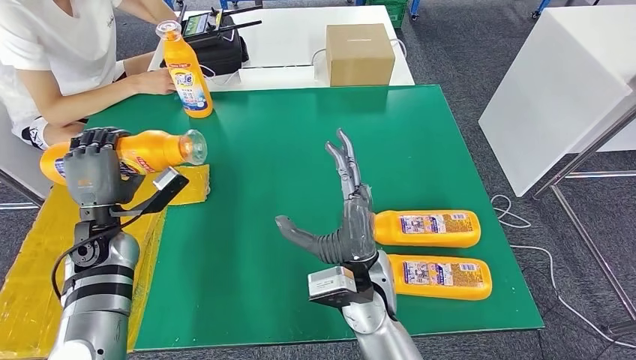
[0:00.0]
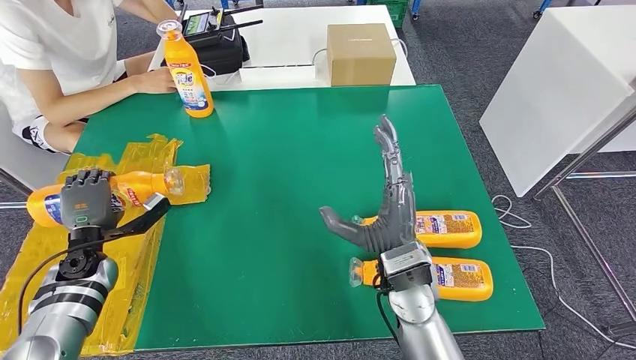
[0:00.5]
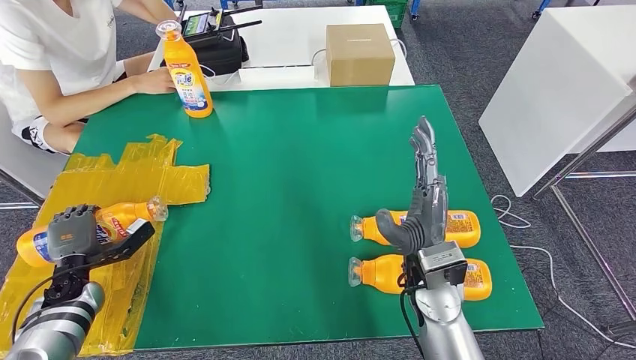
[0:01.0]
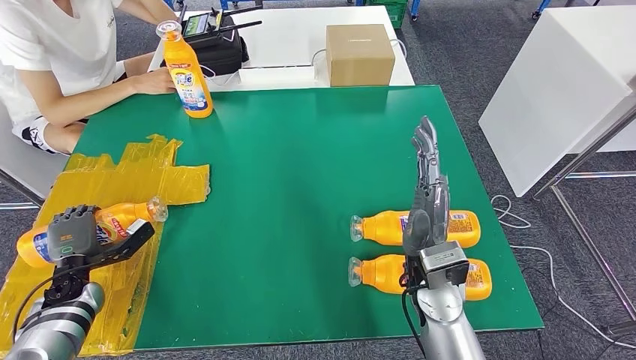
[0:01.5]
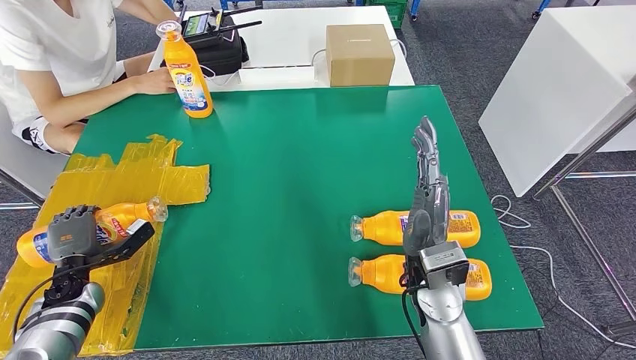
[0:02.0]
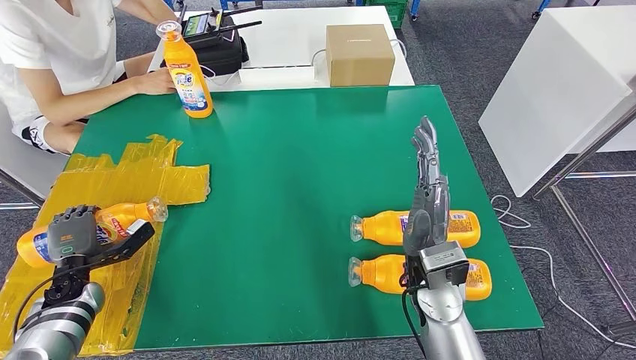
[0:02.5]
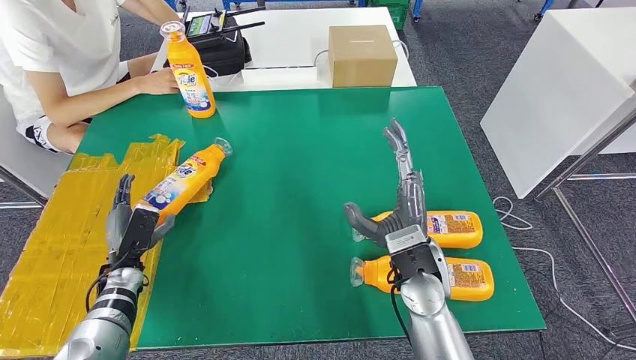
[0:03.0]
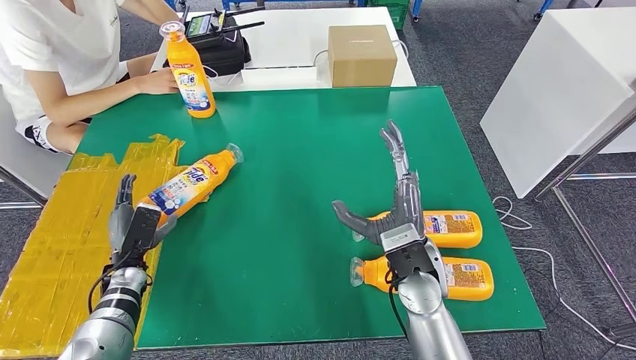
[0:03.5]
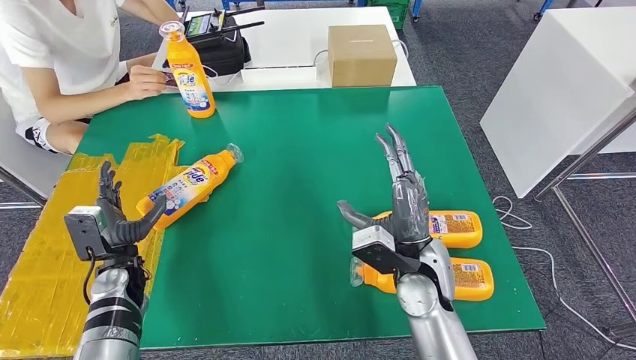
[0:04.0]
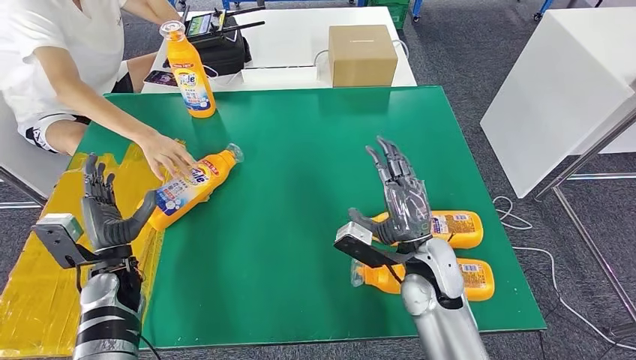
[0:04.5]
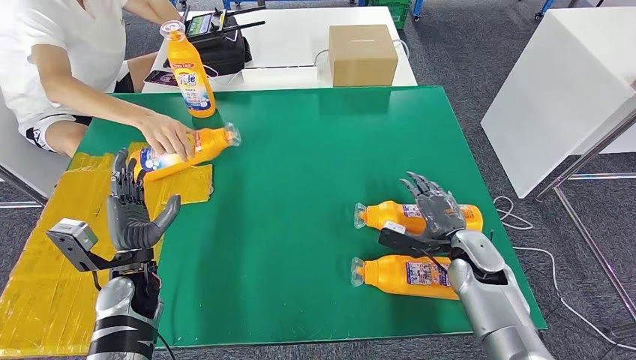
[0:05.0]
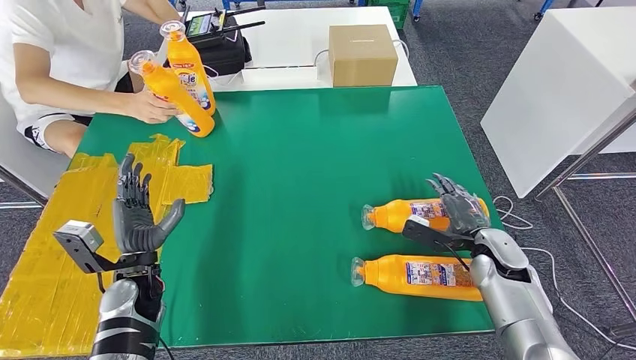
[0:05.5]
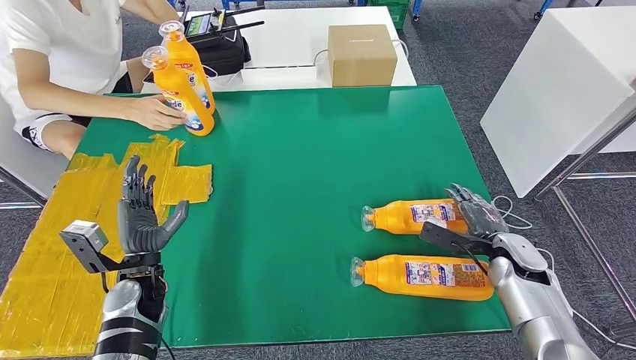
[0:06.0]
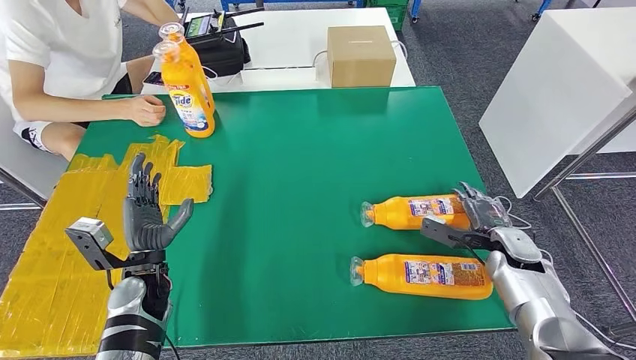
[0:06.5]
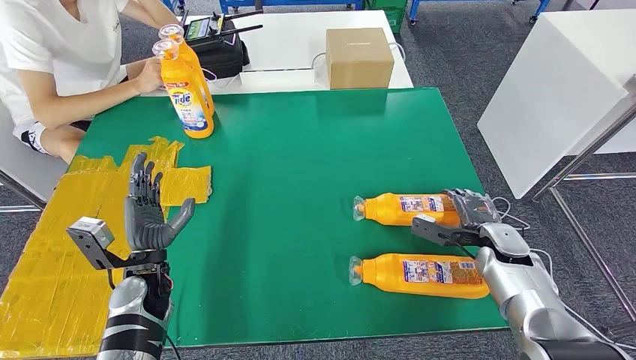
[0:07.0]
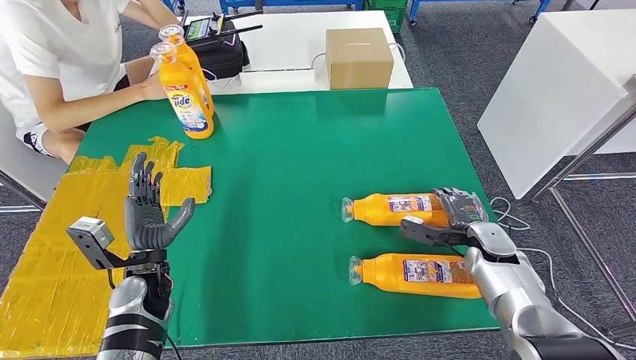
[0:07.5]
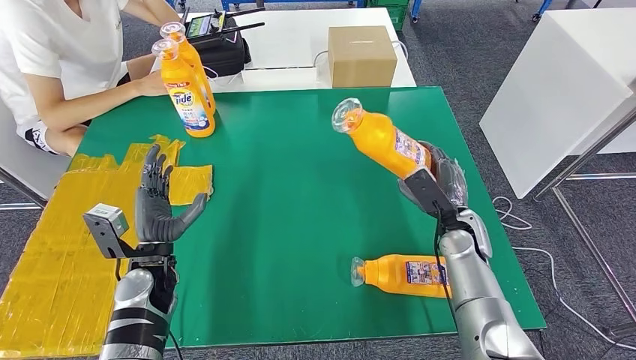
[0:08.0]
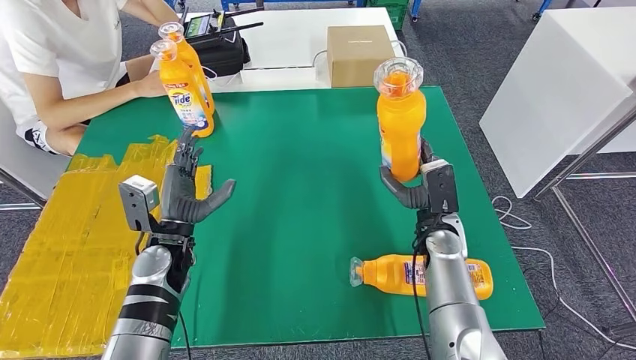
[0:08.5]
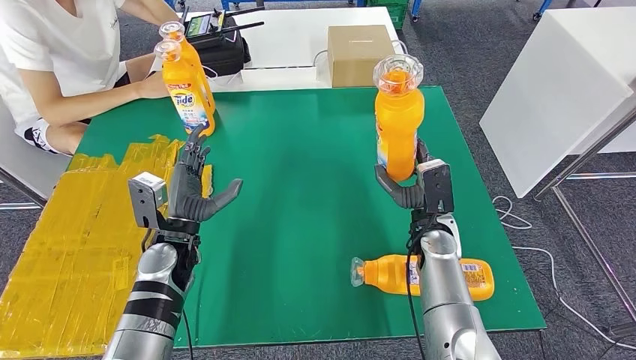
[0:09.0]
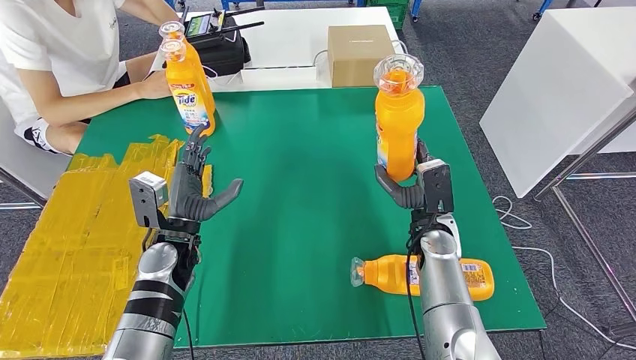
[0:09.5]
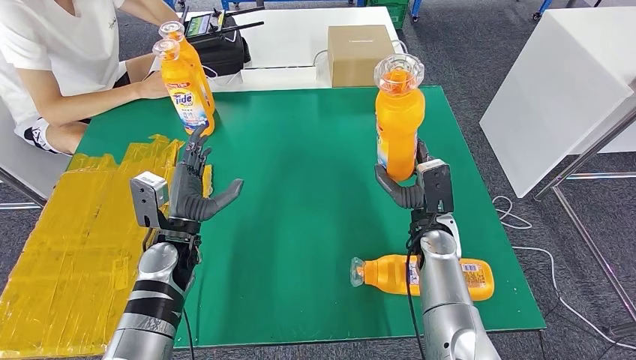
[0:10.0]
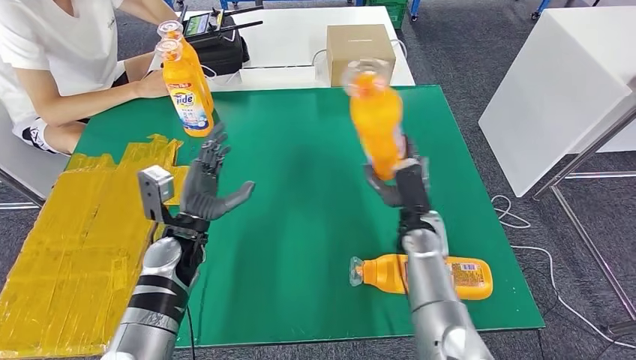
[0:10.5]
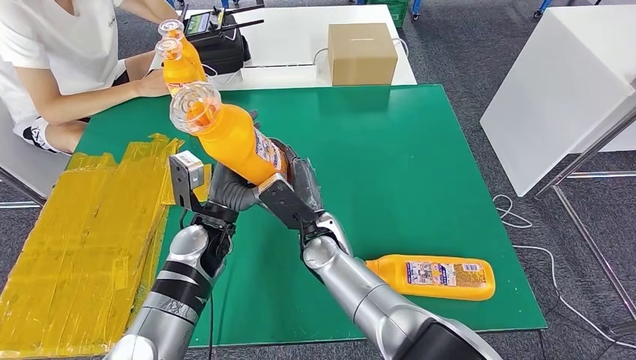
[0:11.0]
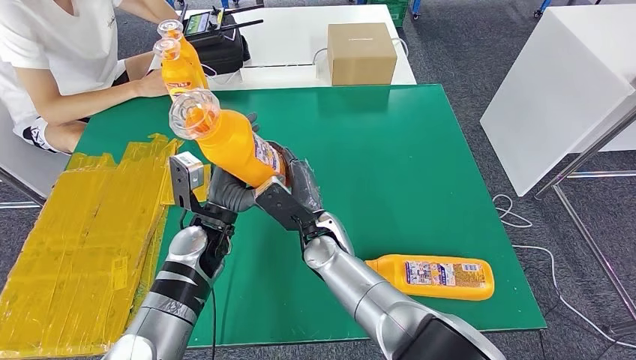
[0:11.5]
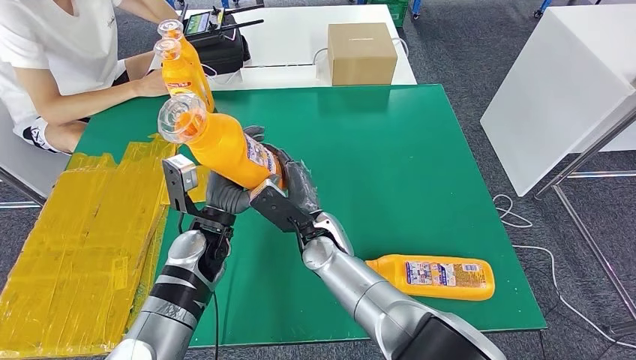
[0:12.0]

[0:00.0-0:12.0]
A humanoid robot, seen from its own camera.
Step, 0:00.0 to 0:03.0: Flip the bottle to face forward.
0:00.0 to 0:02.0: The left hand heads downward and to the left, covering approximately 15 cm. Meanwhile the right hand moves to the right, about 10 cm.
0:08.0 to 0:10.0: The left hand moves approximately 5 cm; the right hand heads to the left, covering some 5 cm.

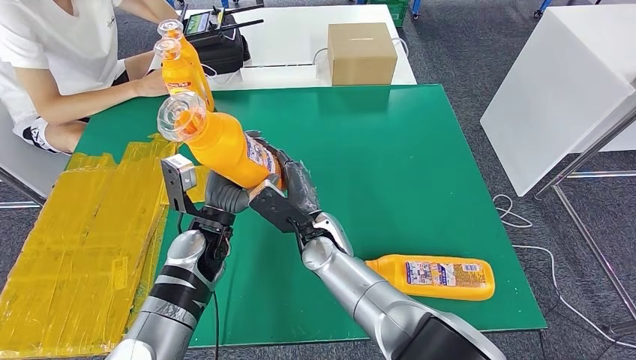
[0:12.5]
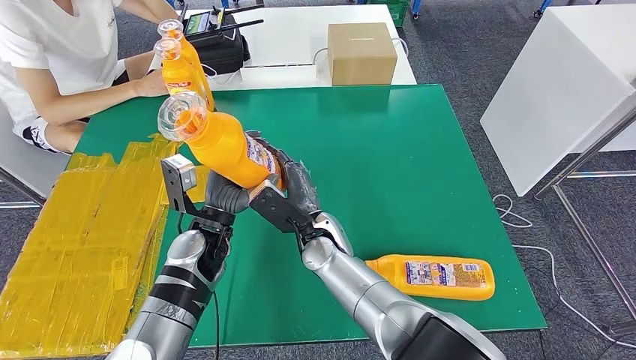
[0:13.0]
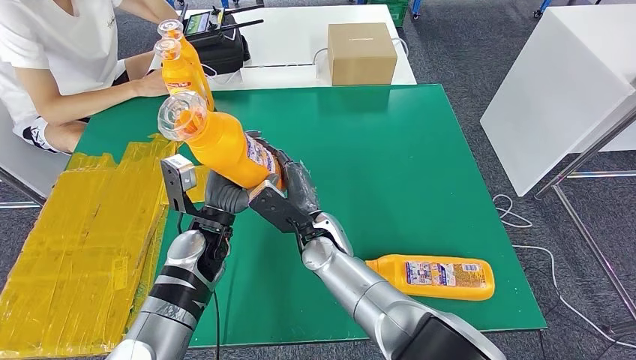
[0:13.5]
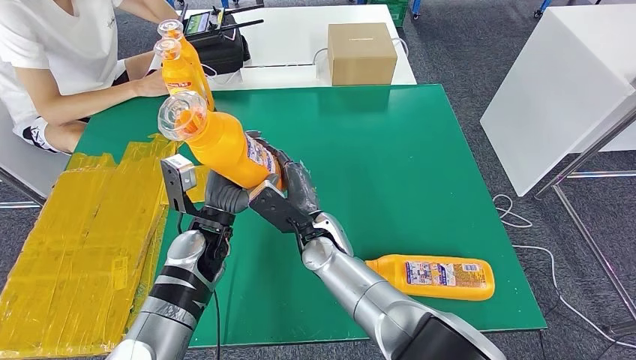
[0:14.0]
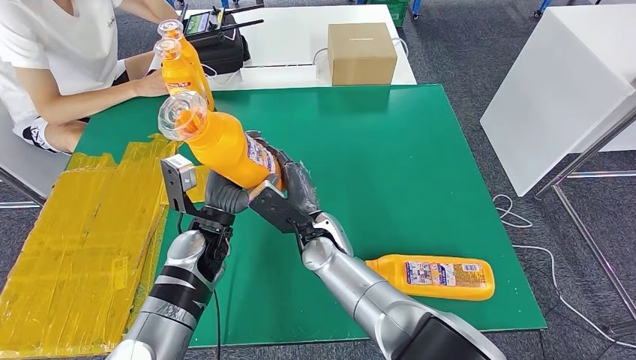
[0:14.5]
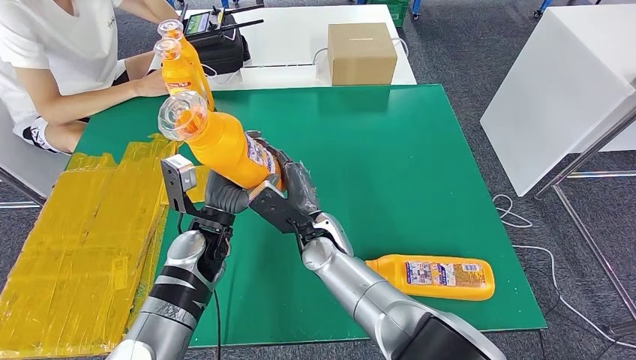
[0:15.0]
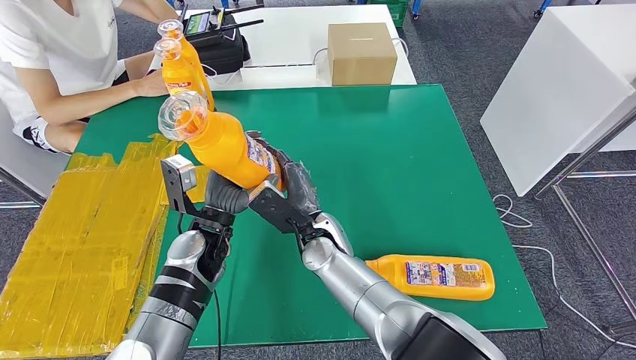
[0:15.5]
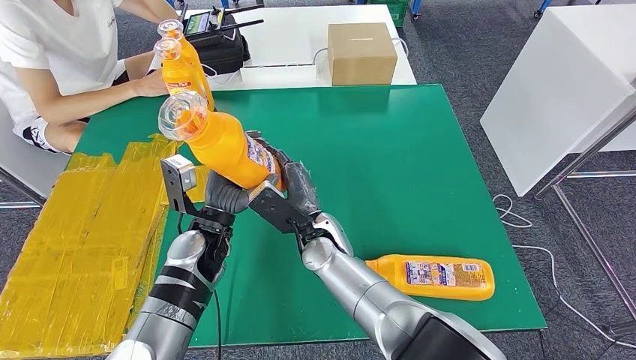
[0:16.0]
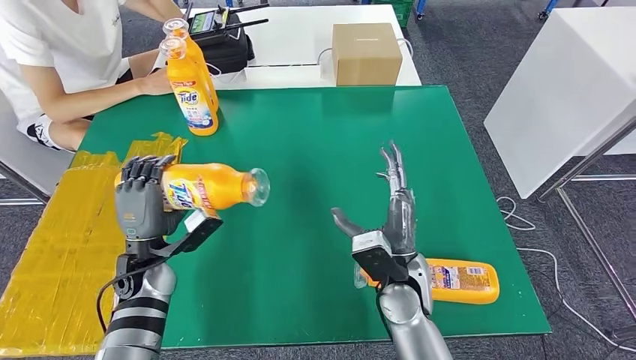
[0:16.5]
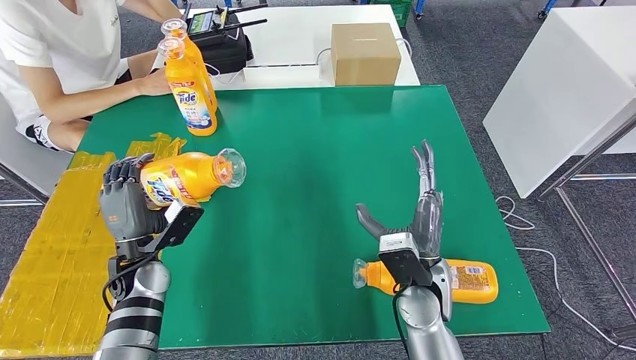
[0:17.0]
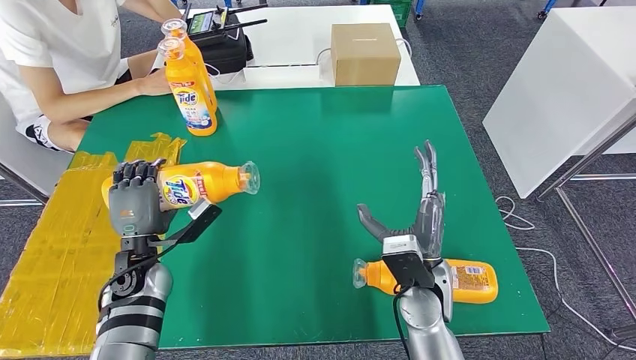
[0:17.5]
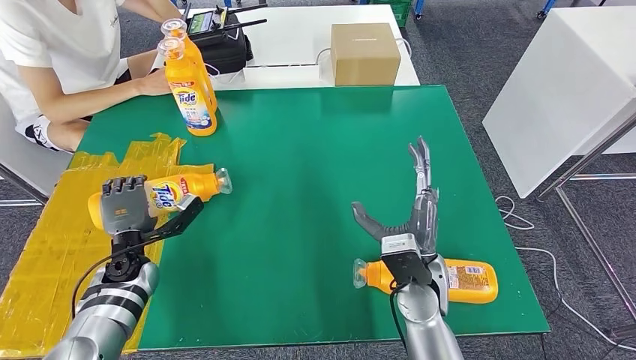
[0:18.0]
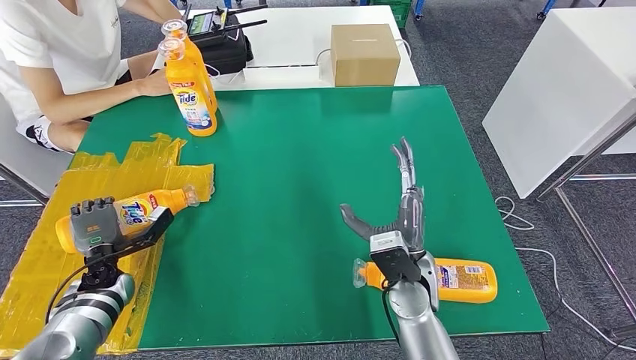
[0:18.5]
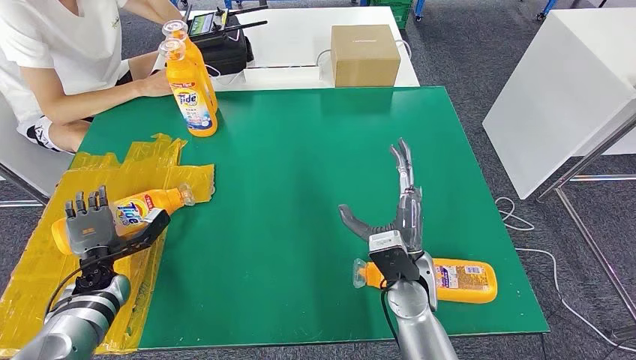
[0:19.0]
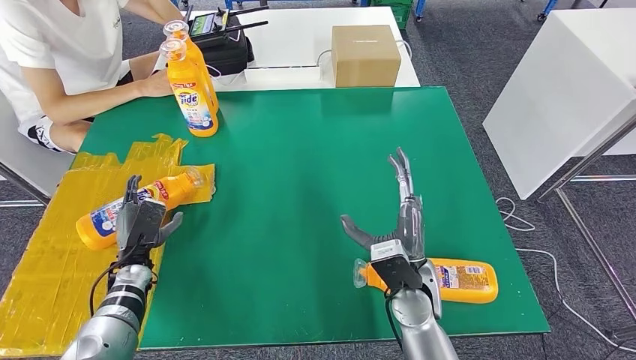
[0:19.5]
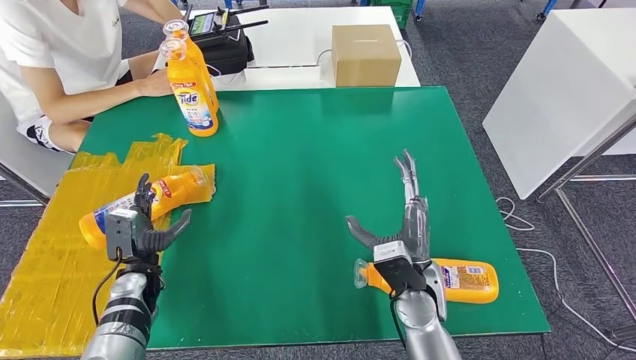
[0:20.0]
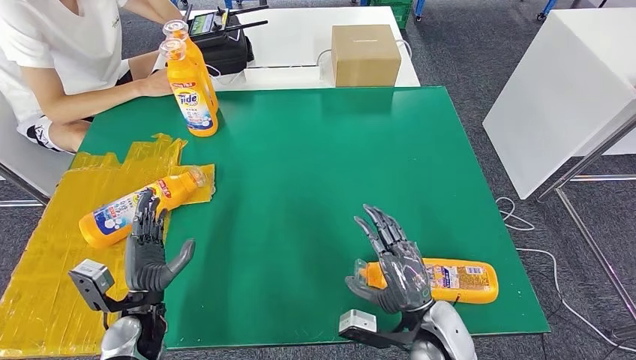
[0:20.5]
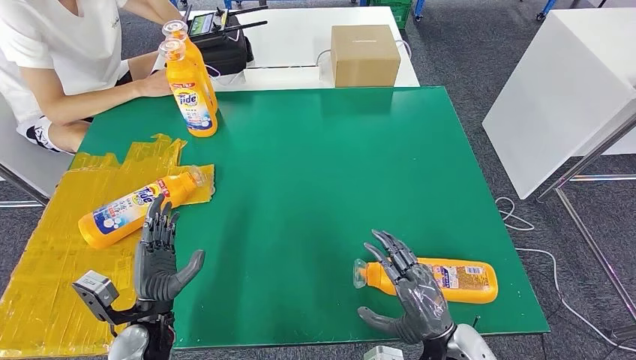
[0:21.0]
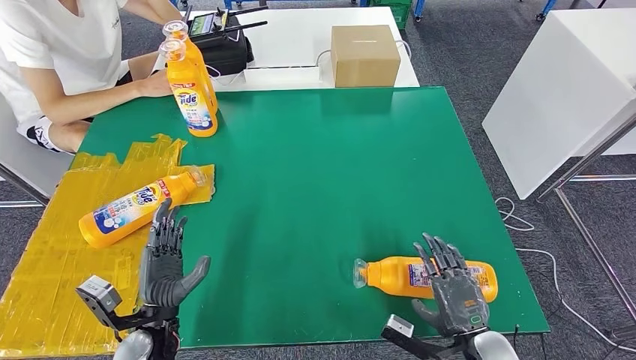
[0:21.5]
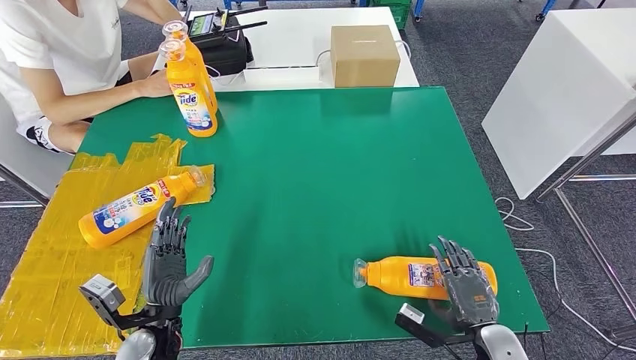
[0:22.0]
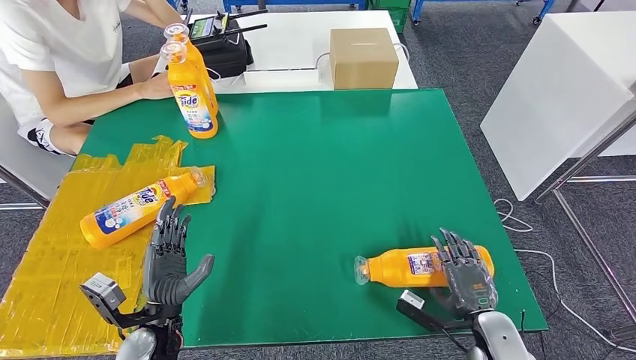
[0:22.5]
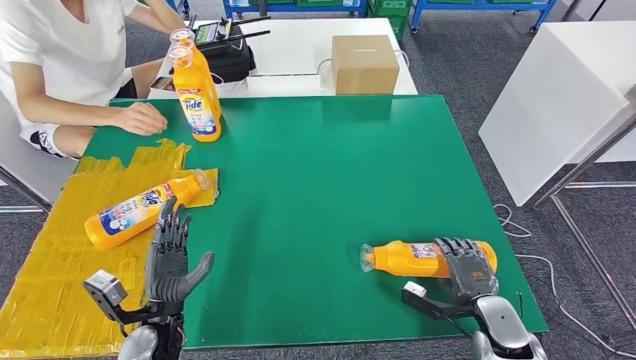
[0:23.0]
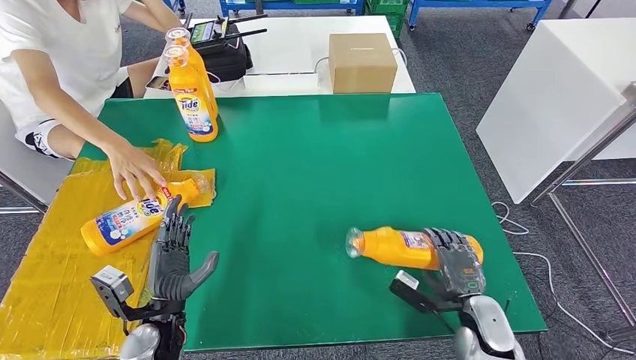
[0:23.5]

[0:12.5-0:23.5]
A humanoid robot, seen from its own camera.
Step, 0:15.5 to 0:21.0: Flip the bottle to face forward.
0:12.5 to 0:16.0: Both hands stay put.
0:18.0 to 0:20.0: The left hand goes to the left and returns, some 5 cm each way.
0:20.0 to 0:21.5: The right hand travels to the right, backward and downward by some 15 cm. The left hand is displaced backward and to the right by roughly 15 cm.
